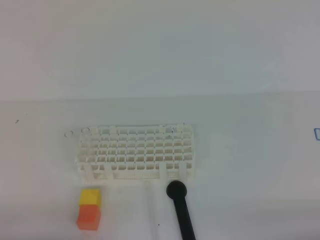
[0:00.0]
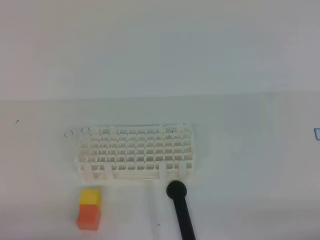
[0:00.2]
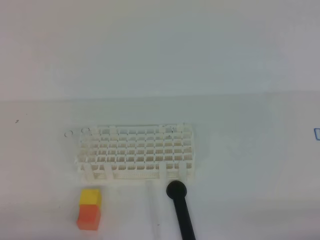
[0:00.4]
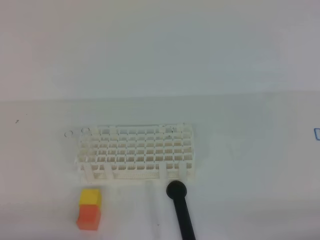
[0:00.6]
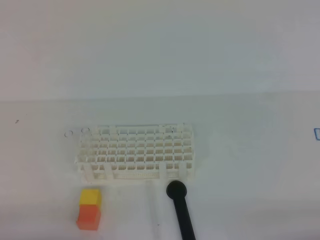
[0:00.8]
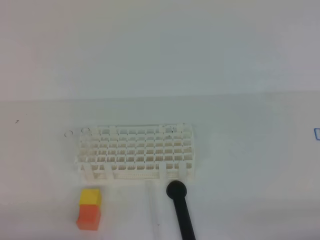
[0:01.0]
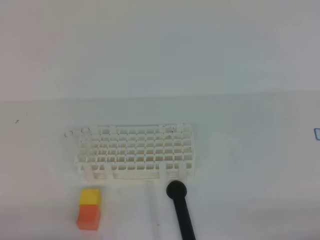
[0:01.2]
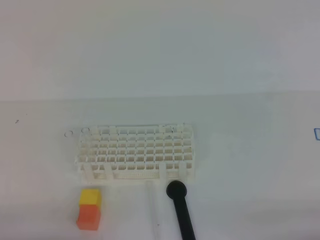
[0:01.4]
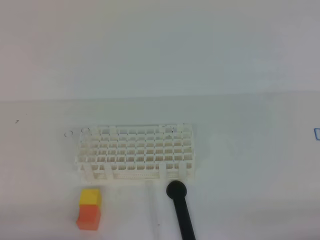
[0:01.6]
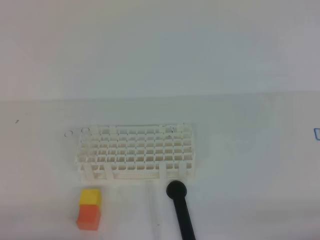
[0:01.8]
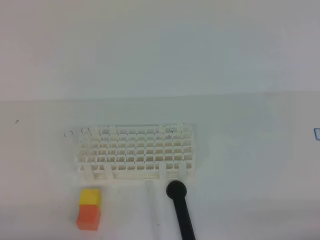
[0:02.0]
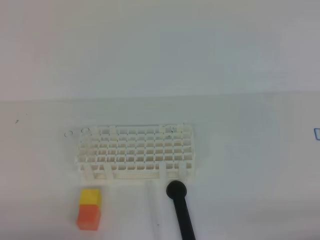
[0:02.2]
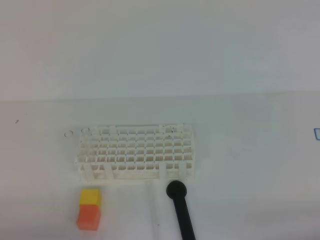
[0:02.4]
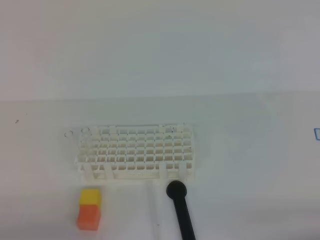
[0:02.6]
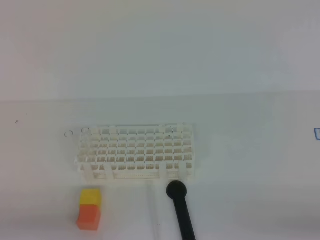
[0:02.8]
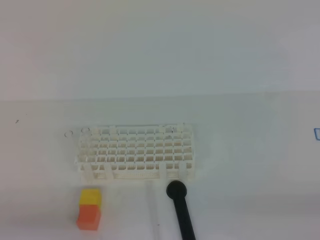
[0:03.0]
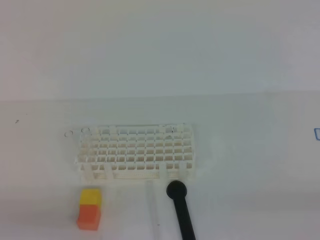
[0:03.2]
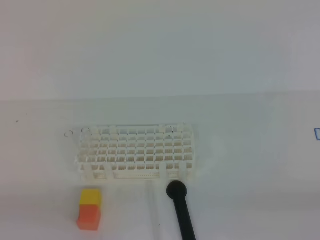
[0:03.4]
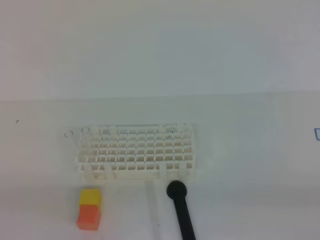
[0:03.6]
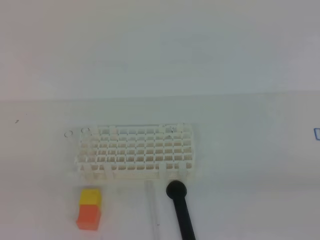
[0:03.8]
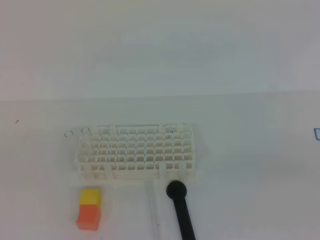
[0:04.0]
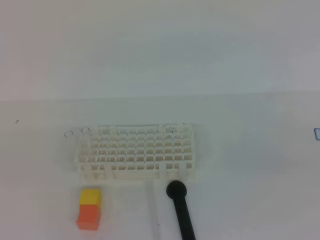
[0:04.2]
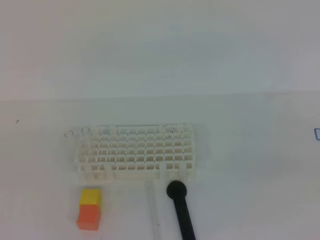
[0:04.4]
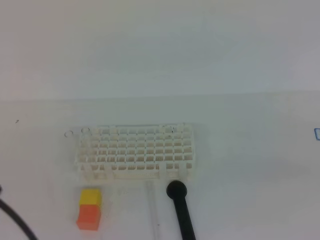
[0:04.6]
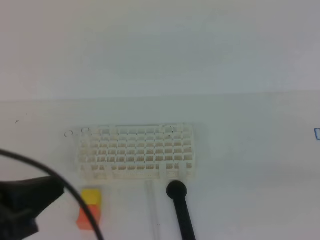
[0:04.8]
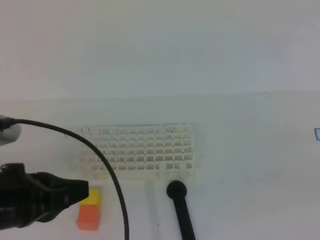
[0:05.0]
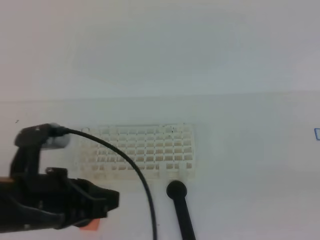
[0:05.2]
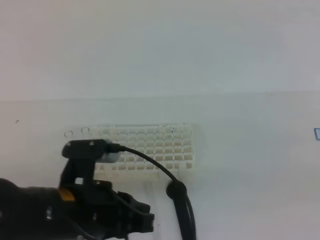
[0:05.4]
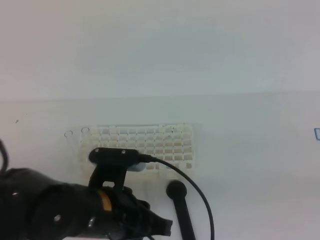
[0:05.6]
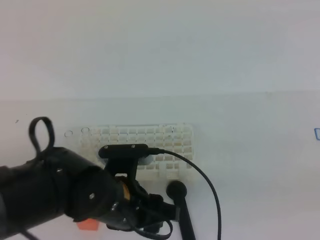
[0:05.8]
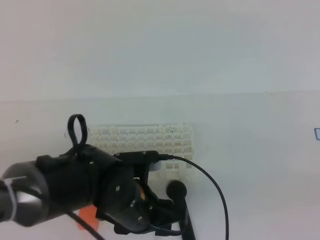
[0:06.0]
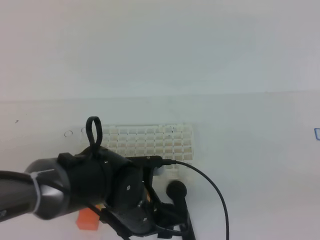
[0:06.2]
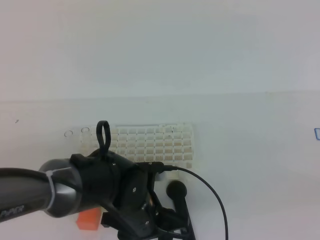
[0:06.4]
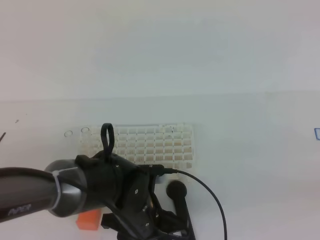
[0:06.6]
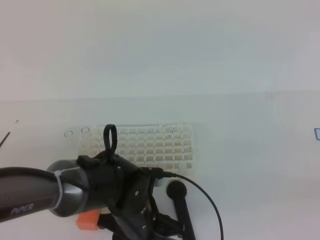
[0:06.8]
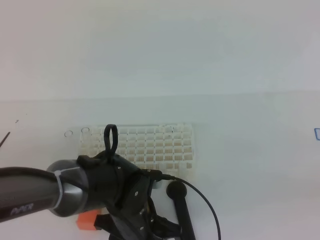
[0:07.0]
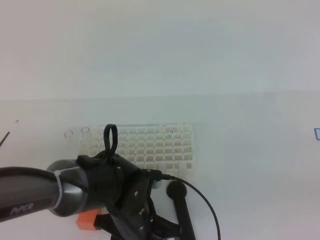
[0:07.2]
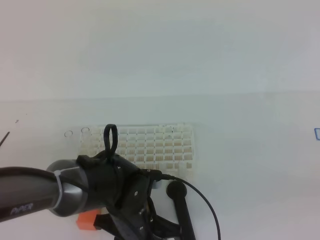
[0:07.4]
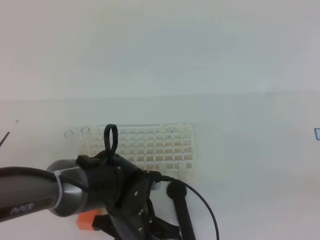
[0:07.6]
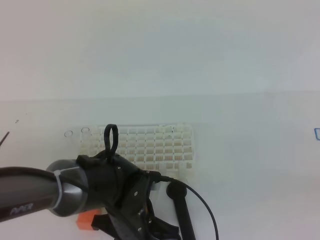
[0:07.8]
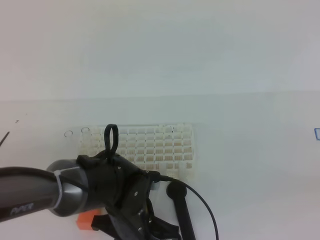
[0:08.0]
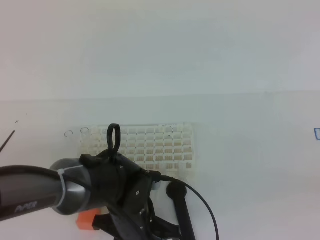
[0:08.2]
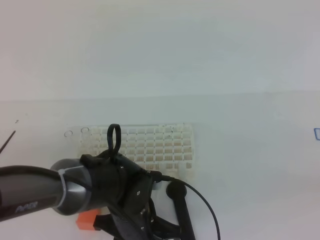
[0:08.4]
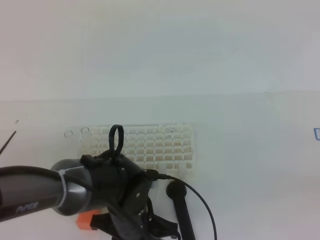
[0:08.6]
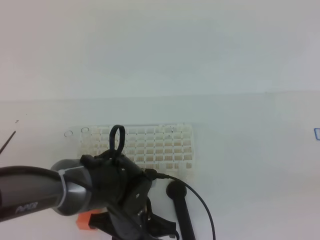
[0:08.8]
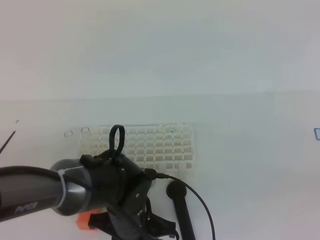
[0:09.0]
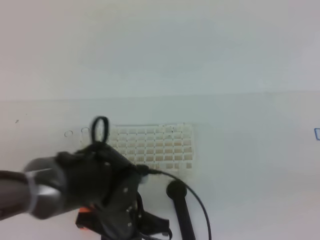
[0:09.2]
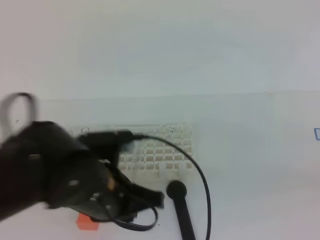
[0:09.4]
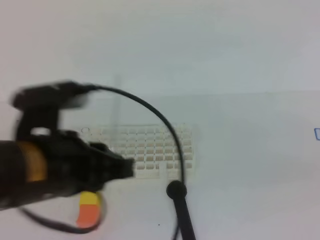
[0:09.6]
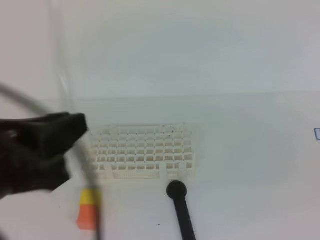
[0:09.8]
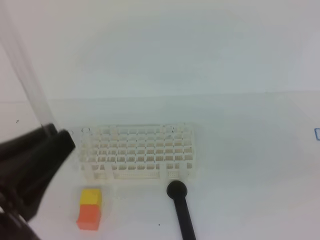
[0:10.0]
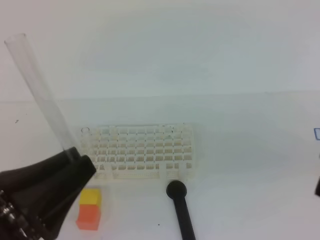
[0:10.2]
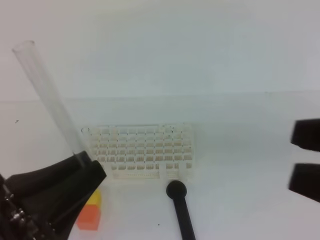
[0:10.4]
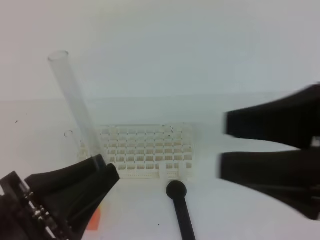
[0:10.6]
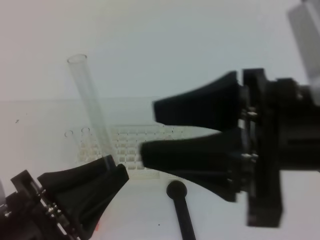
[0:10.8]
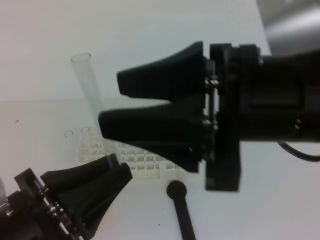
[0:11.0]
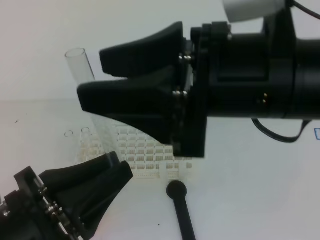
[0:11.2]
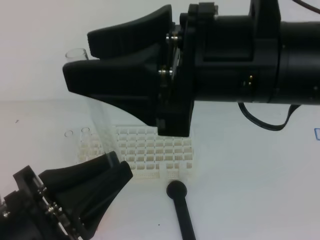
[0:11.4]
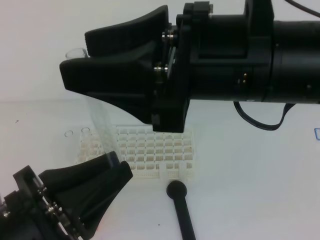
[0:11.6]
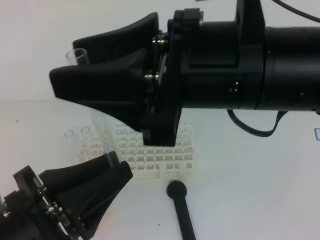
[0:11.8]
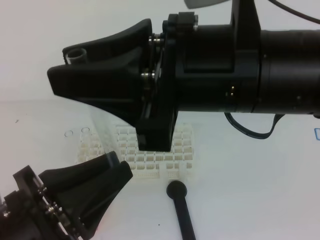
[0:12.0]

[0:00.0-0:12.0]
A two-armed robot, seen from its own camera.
0:00.0 to 0:01.6: The two grippers keep their place.
0:04.4 to 0:06.0: The left gripper is displaced to the right, forward and downward by about 30 cm, and opens.
0:06.0 to 0:07.6: The left gripper goes approximately 5 cm downward, and closes up.
0:07.6 to 0:09.0: The grippers make only small movements.
0:09.0 to 0:10.4: The left gripper goes some 25 cm upward, backward and to the left. Meanwhile the right gripper is displaced to the left and upward by roughly 10 cm, and opens its fingers.
0:10.4 to 0:12.0: The right gripper moves to the left and forward, some 20 cm.

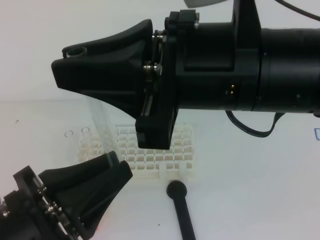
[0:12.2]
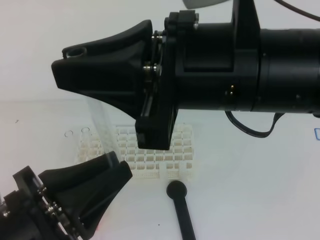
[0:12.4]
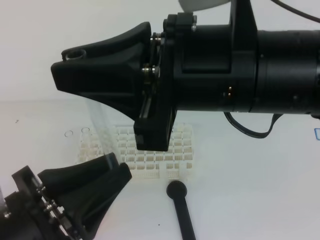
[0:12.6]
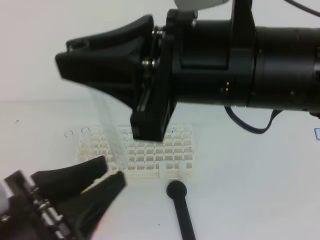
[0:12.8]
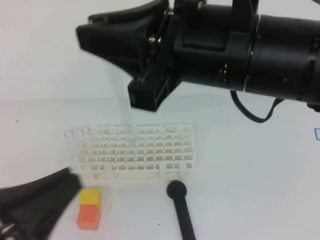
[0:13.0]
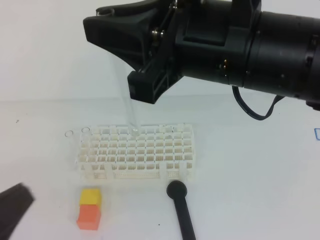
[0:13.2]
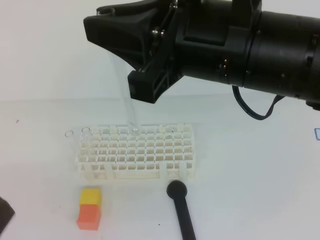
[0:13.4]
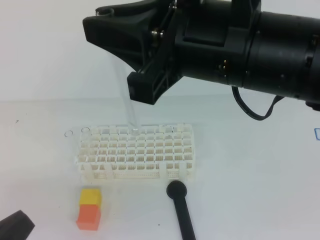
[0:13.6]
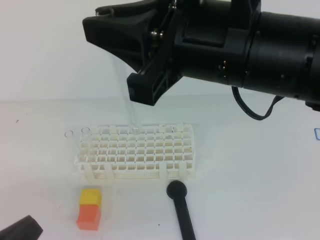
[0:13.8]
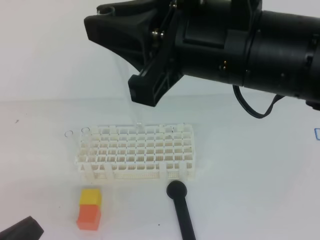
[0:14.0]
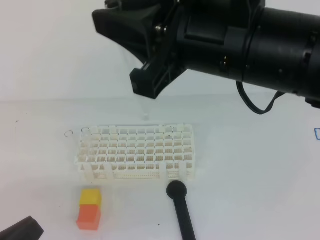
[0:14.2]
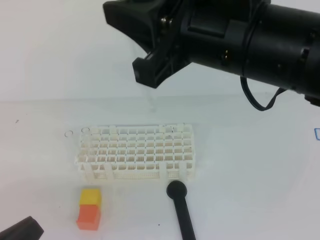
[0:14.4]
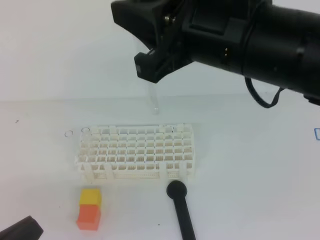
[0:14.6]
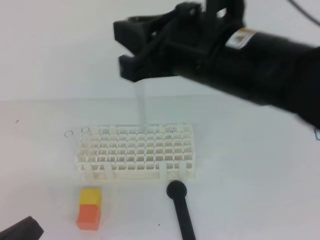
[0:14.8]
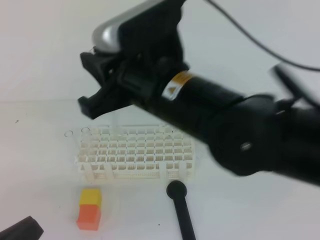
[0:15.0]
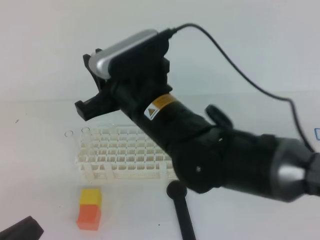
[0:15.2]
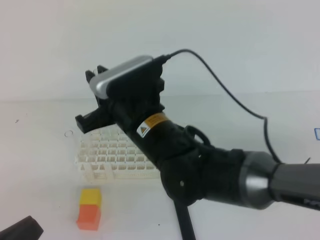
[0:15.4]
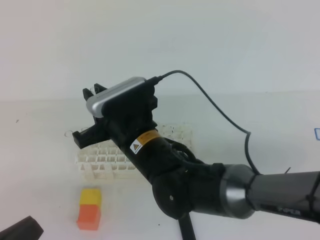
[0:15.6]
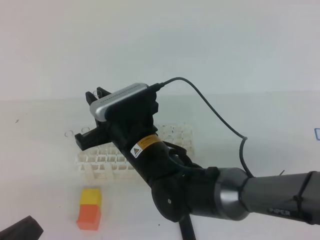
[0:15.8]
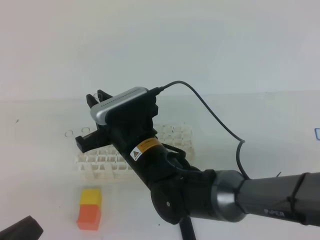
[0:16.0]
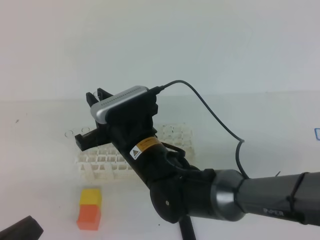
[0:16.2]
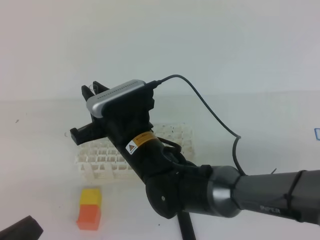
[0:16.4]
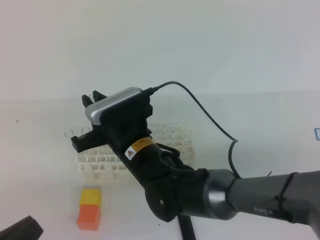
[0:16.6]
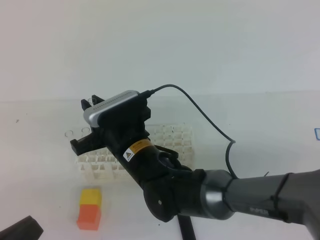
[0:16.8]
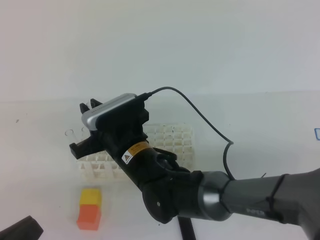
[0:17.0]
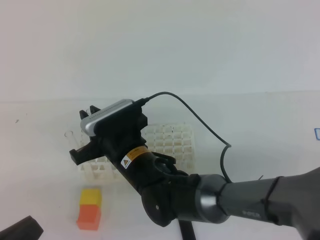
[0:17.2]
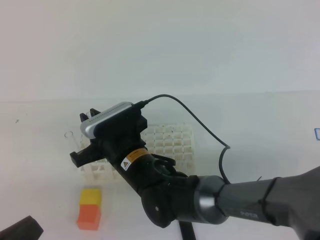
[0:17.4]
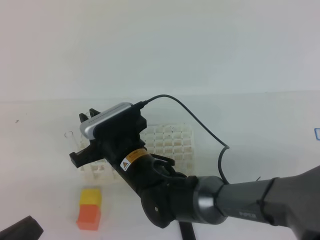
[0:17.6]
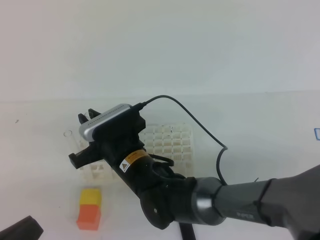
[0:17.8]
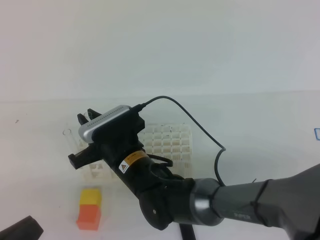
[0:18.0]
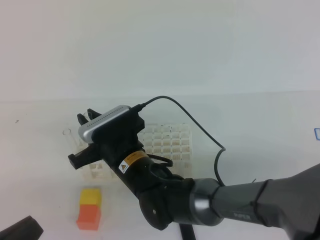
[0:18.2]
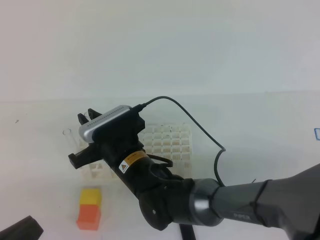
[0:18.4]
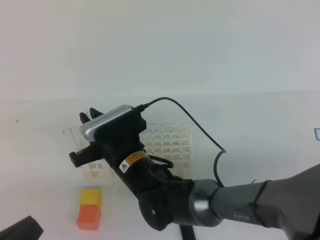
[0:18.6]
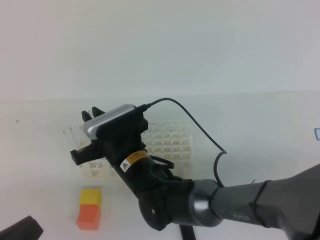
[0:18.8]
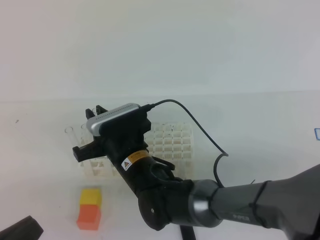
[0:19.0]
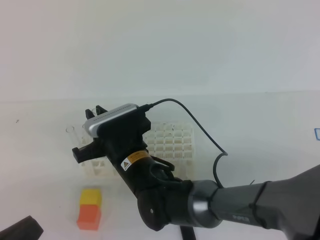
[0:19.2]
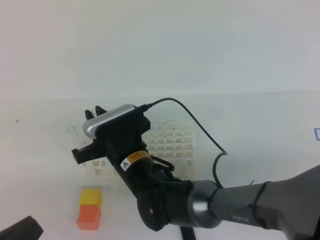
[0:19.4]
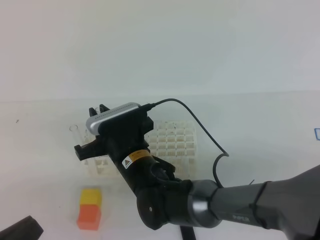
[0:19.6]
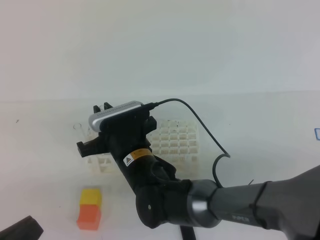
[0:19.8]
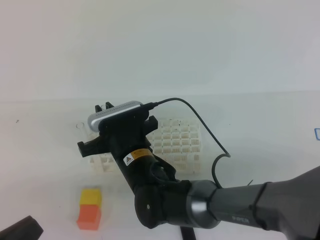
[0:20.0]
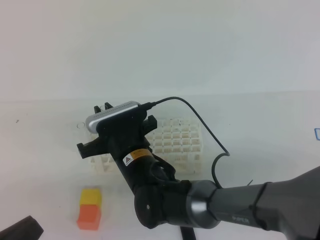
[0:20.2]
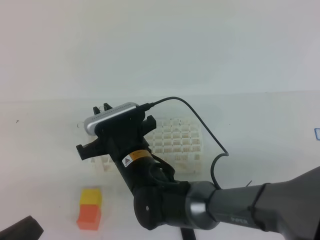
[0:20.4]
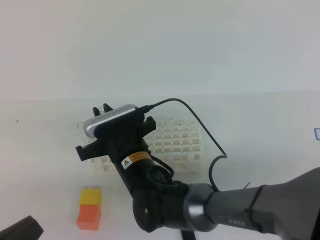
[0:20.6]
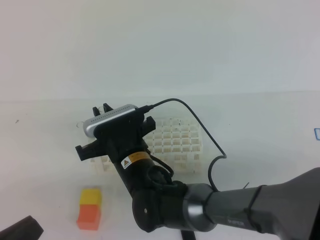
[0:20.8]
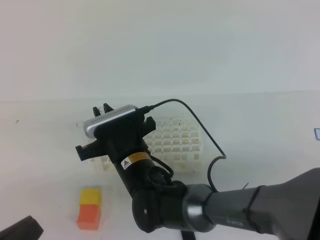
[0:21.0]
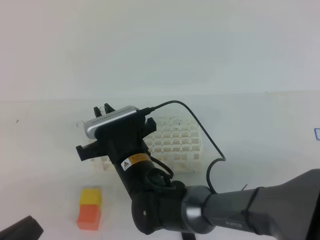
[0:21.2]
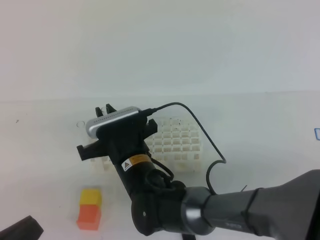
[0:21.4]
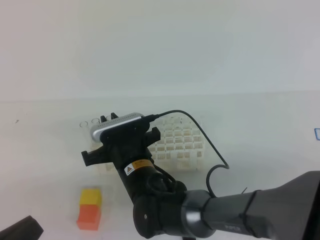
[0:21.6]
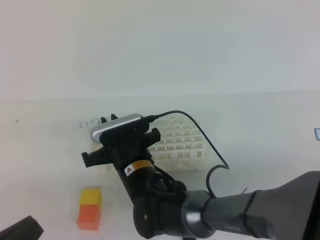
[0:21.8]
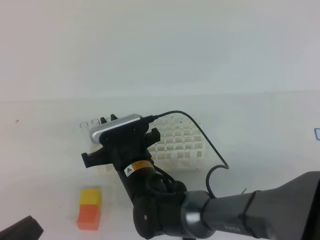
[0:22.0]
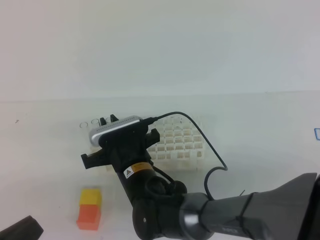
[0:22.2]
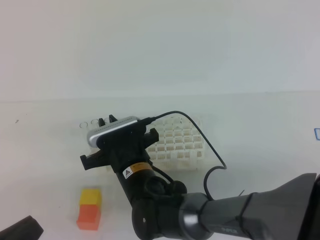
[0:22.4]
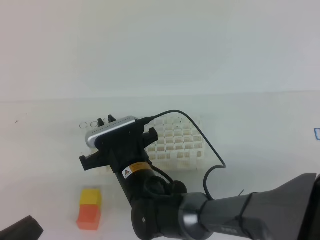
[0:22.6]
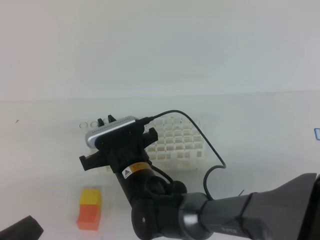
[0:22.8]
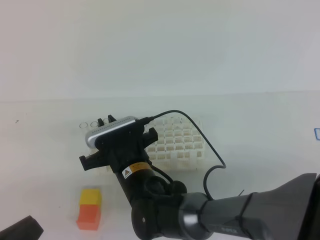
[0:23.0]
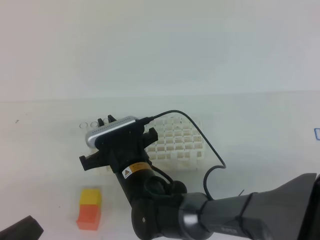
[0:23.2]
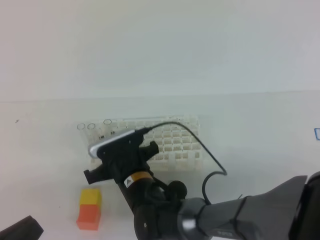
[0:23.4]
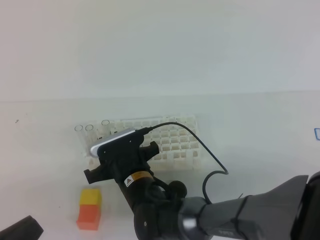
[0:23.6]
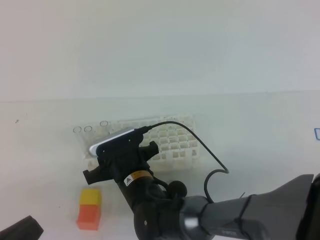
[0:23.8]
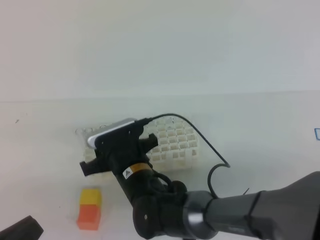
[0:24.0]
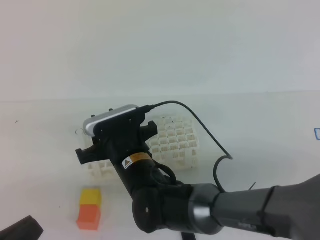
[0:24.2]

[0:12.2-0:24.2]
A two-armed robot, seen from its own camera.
0:12.2 to 0:13.8: The left gripper is displaced to the left by approximately 10 cm.
0:13.8 to 0:15.2: The right gripper heads downward, to the left and forward, covering about 15 cm.
0:15.2 to 0:16.6: The right gripper goes some 10 cm downward.
0:16.6 to 0:19.8: There are only small adjustments of the grippers.
0:19.8 to 0:21.2: Both grippers stay about where they are.
0:21.2 to 0:22.6: The grippers stay close to where they were, moving slightly.
0:22.6 to 0:24.2: The right gripper opens.
